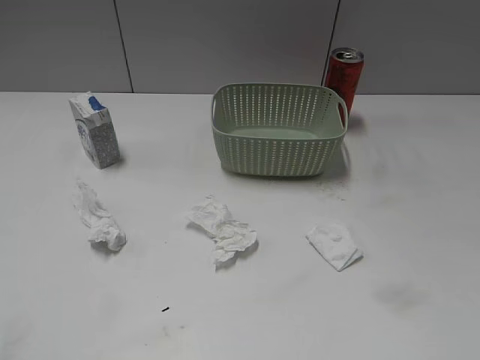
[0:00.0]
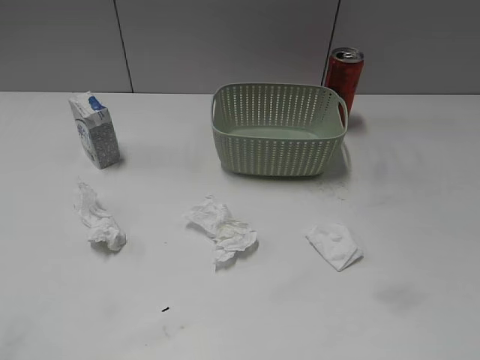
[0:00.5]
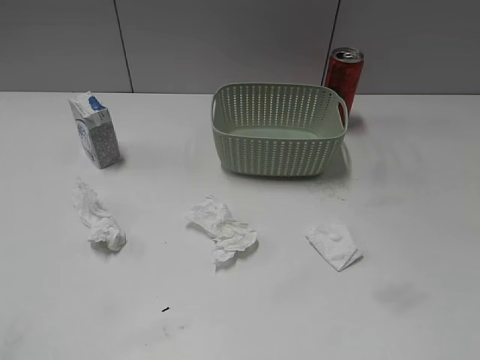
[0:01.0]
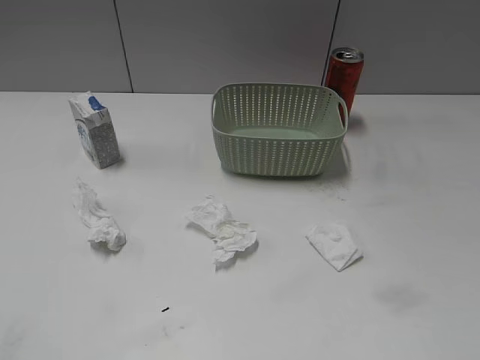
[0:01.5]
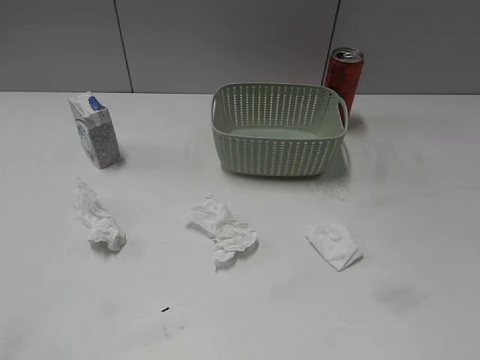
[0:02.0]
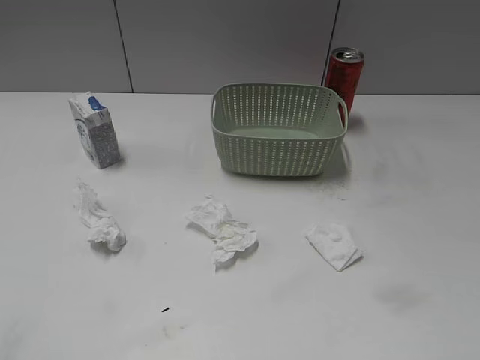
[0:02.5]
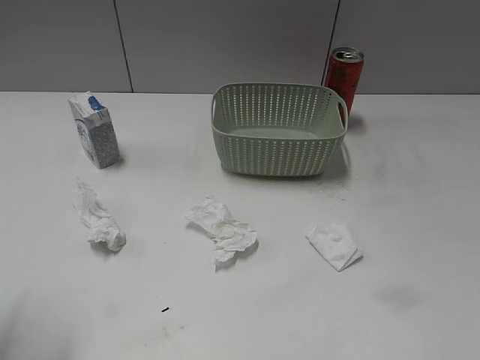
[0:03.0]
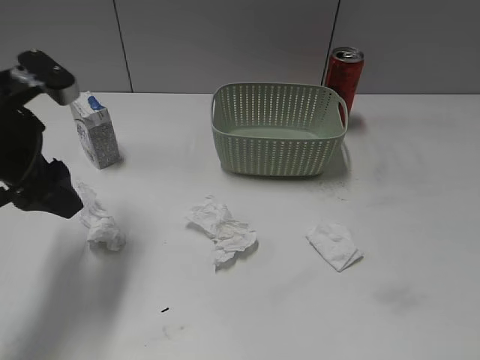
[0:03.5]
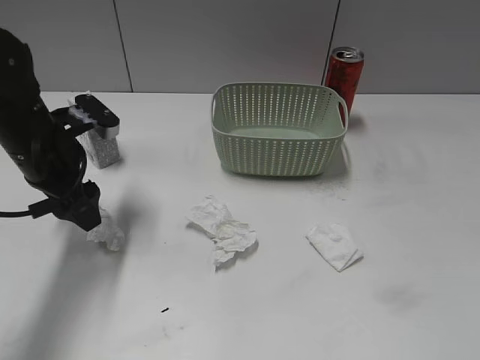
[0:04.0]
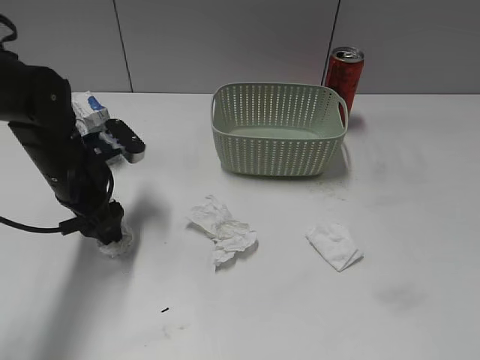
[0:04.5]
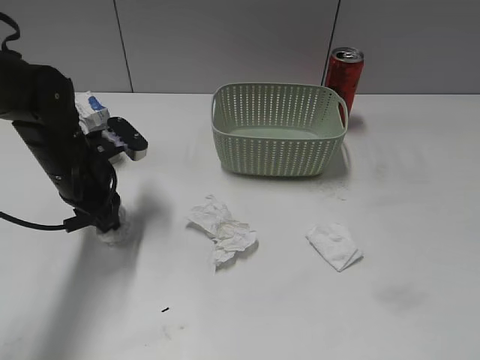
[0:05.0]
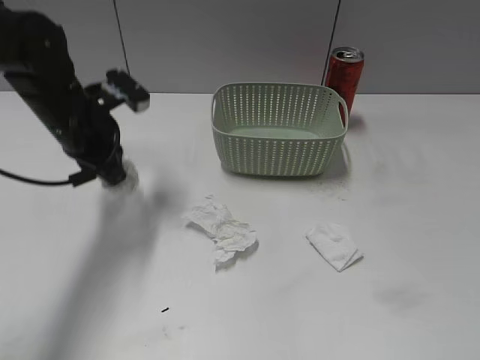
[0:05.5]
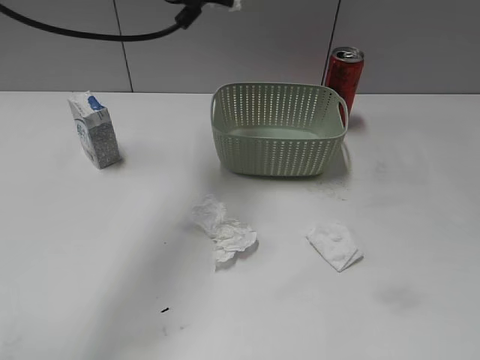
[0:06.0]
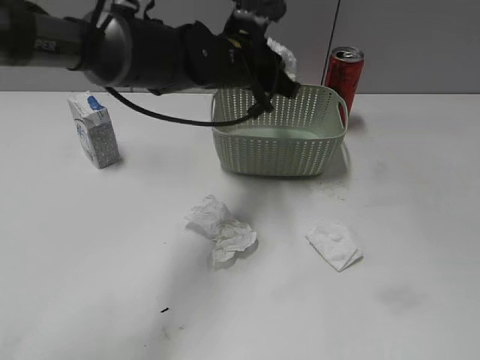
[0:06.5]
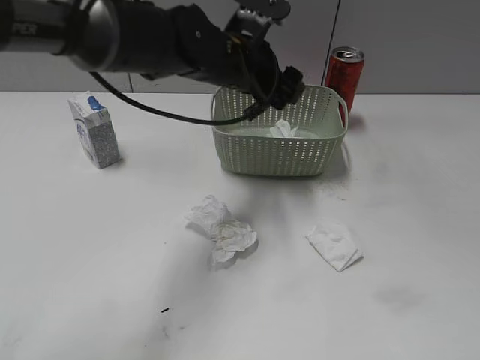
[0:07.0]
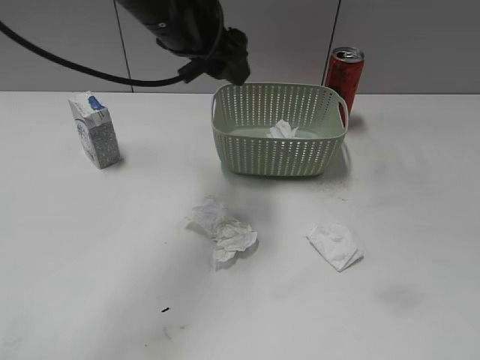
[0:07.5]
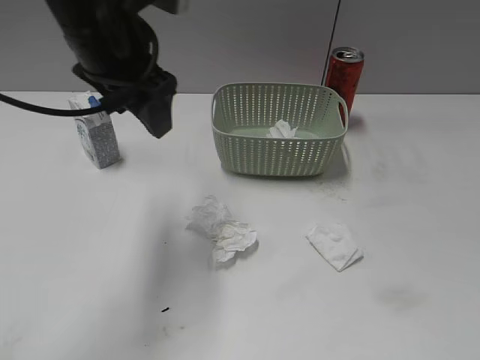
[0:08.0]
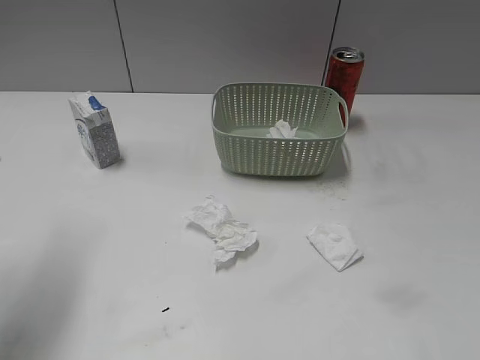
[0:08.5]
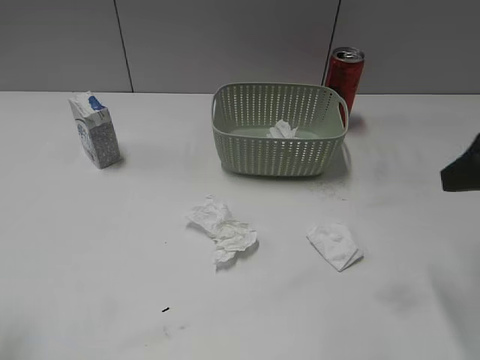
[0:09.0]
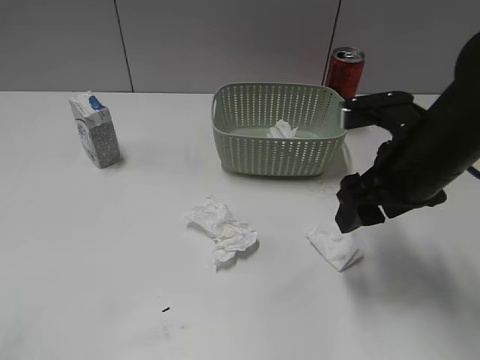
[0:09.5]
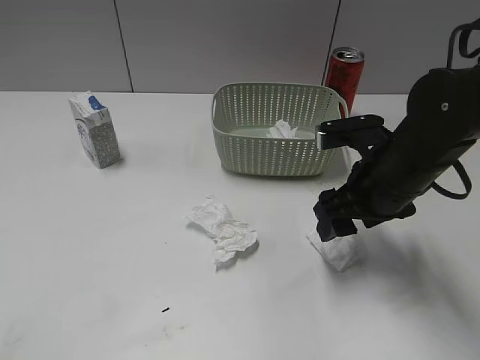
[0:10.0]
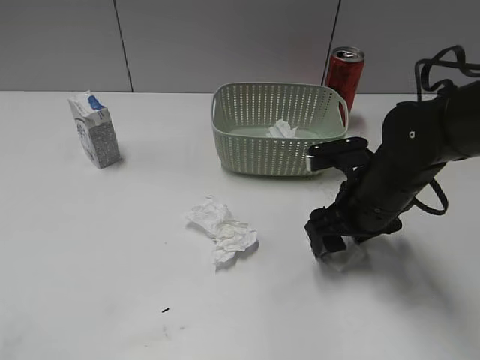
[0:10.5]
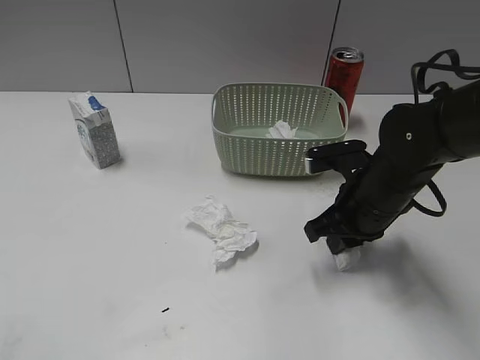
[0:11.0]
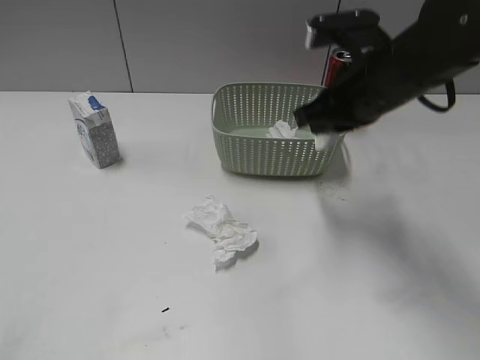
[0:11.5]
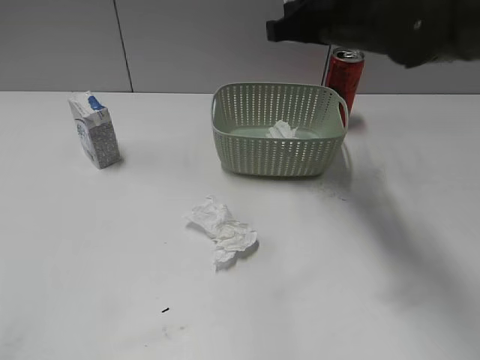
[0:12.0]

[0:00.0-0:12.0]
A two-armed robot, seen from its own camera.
Step, 0:03.5 to 0:05.5: Grasp the waste paper with left gripper.
Step, 0:06.0 to 0:07.0: Place the waste paper in the basket with left gripper.
Step, 0:07.5 to 0:11.0: Grasp the waste paper with right gripper.
0:02.0 to 0:04.0: The left gripper travels forward by about 35 cm.
0:04.0 to 0:06.0: The left gripper moves upward, to the right and forward, about 20 cm, and closes up.
0:06.0 to 0:08.0: The left gripper is displaced backward by about 10 cm, travels downward and back again, roughly 10 cm each way, and opens up.
0:08.0 to 0:10.0: The right gripper goes about 35 cm forward, to the left and downward; the left gripper moves backward and to the left, some 35 cm.
0:10.0 to 0:12.0: The right gripper goes some 15 cm forward and upward, and closes.

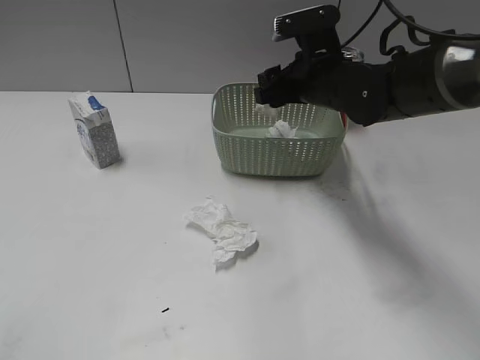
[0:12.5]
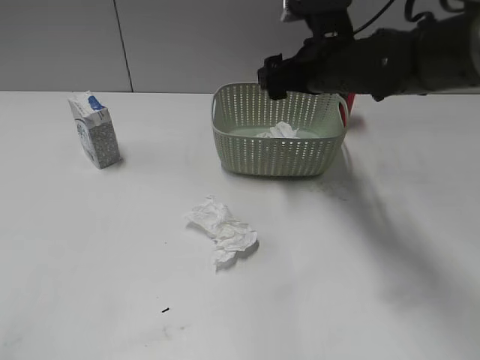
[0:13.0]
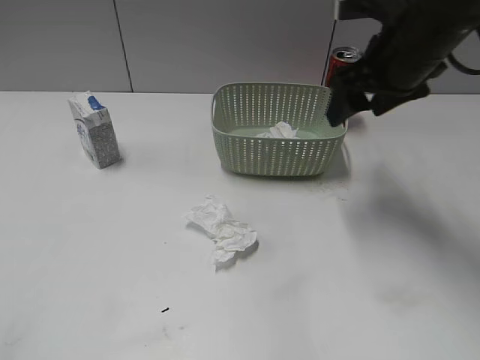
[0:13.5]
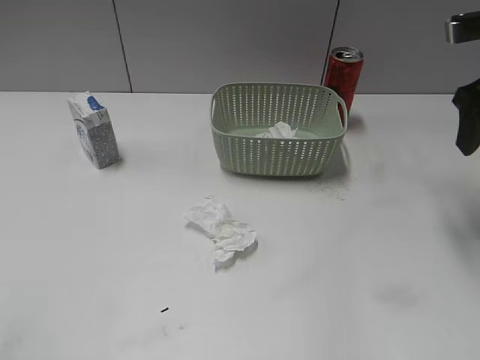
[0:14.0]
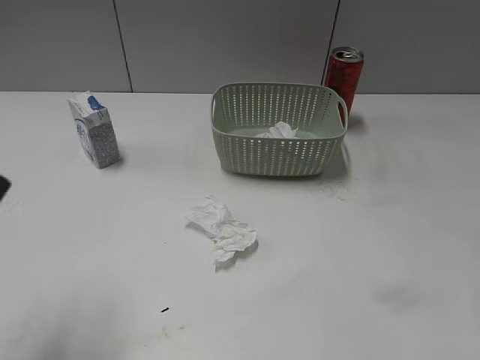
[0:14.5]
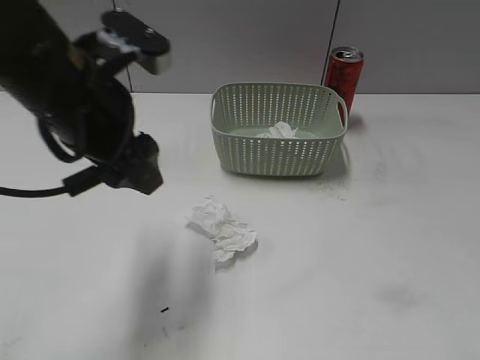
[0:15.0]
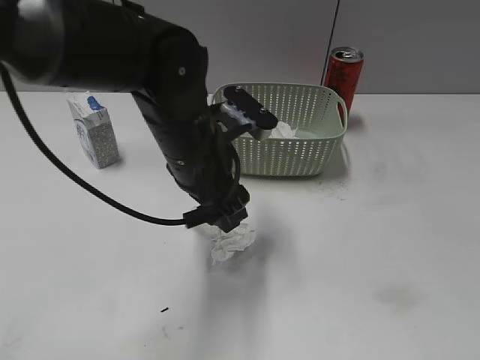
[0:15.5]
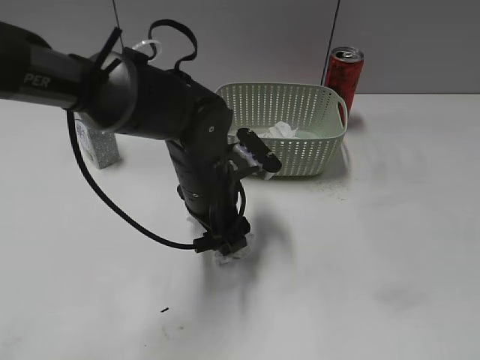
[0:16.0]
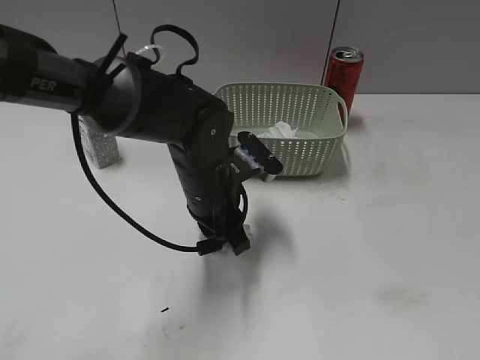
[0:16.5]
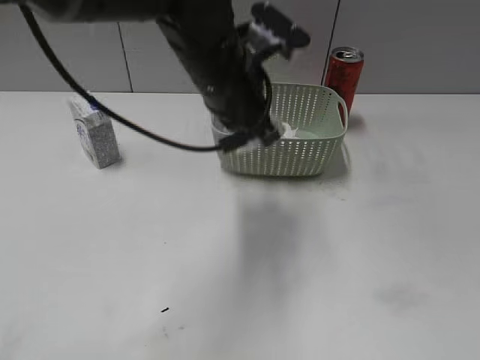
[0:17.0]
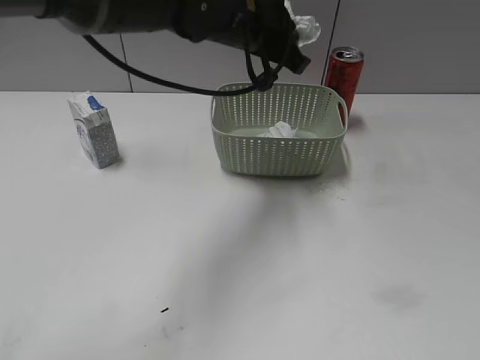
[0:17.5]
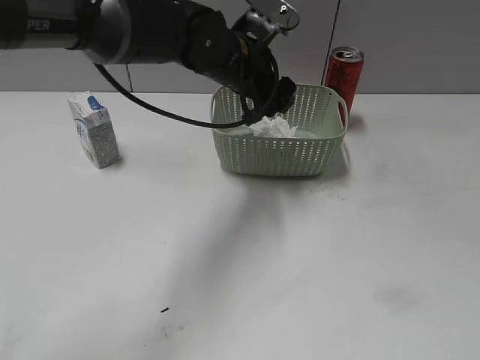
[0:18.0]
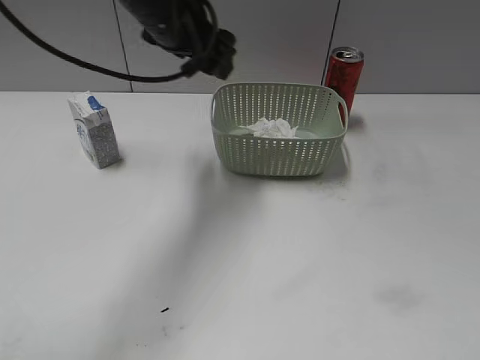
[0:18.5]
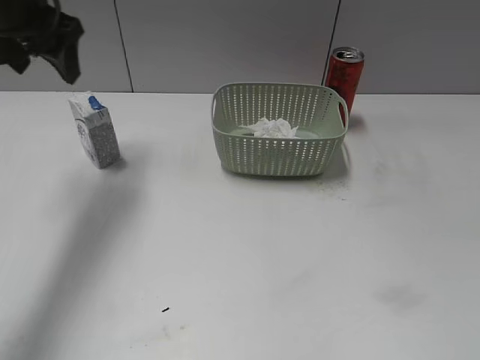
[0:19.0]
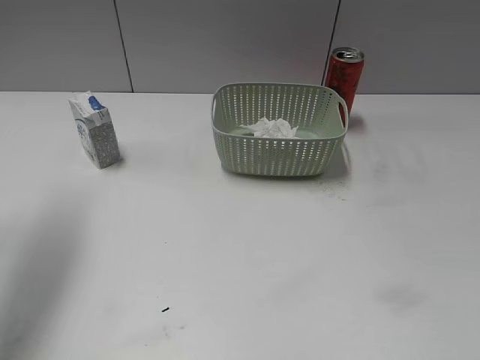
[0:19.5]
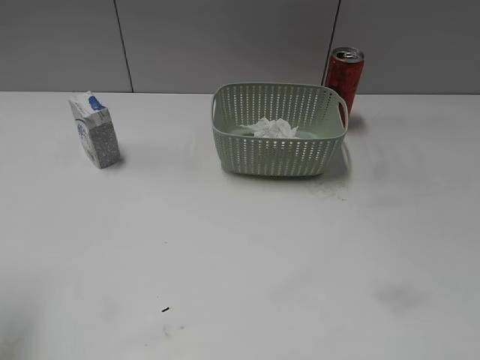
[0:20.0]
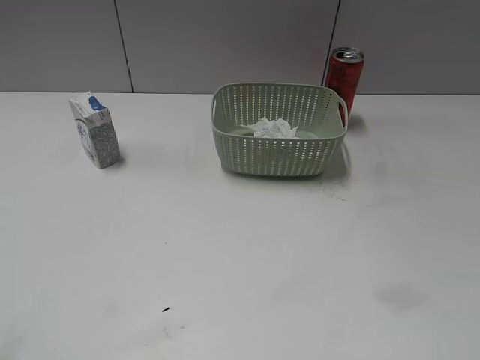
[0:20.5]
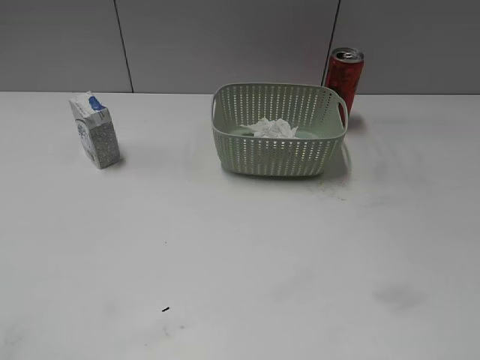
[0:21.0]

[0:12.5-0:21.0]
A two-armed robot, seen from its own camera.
Step, 0:13.0 to 0:16.5: Grasp the waste paper with left gripper.
Step, 0:17.0 to 0:18.0: Place the waste paper in the basket with left gripper.
0:12.5 to 0:14.5: The right gripper goes roughly 30 cm backward, to the right and upward. The left gripper goes approximately 15 cm forward and to the right.
0:14.5 to 0:16.5: The left gripper travels to the right, downward and forward by approximately 35 cm, and closes its fingers. The right gripper travels backward by about 20 cm.
0:16.5 to 0:19.0: The left gripper is displaced to the left, upward and forward by about 30 cm, and opens its fingers.
0:19.0 to 0:21.0: The left gripper moves backward, roughly 35 cm.

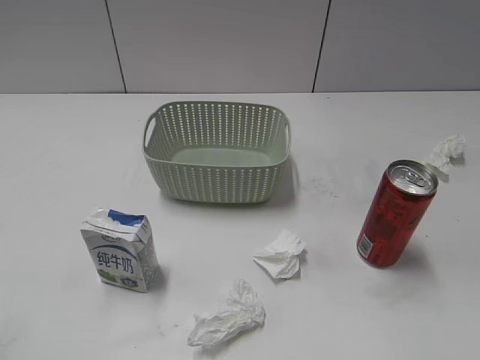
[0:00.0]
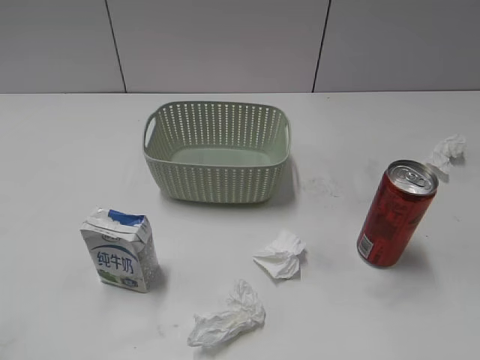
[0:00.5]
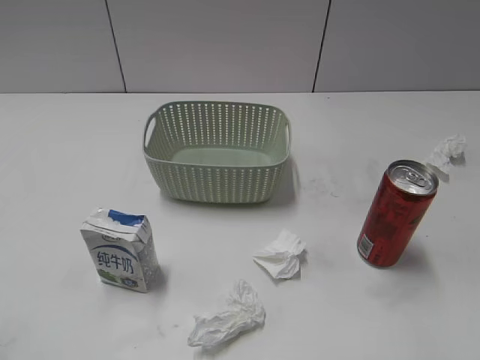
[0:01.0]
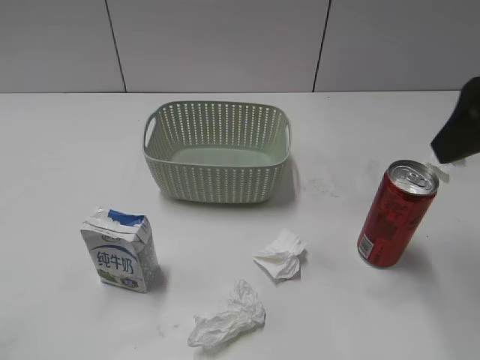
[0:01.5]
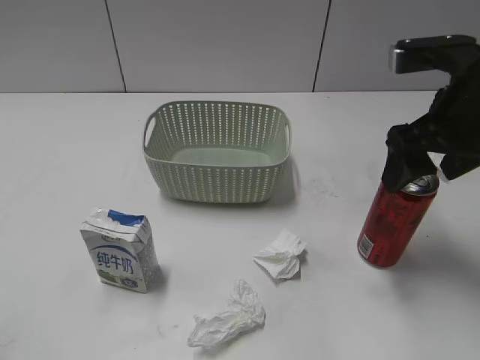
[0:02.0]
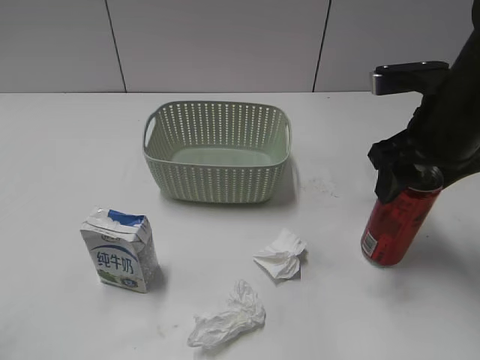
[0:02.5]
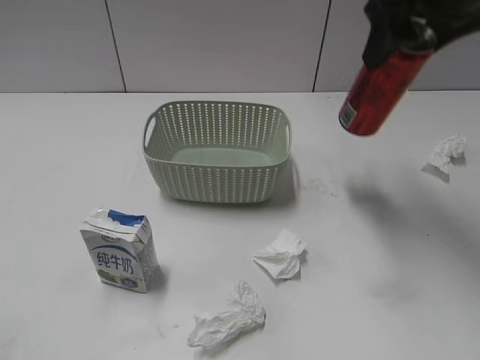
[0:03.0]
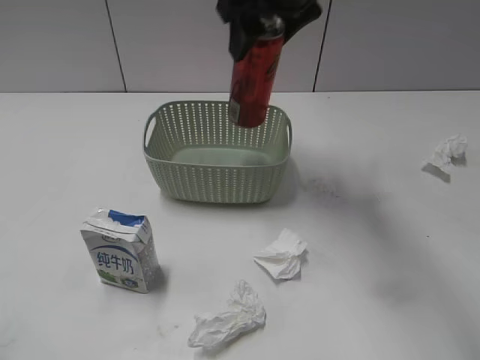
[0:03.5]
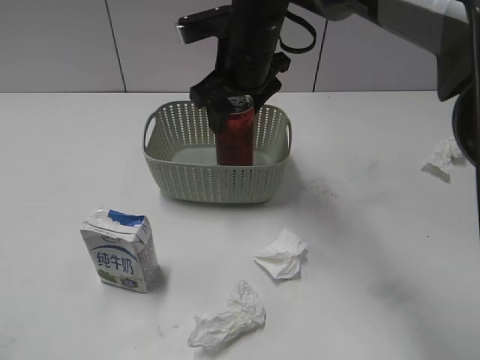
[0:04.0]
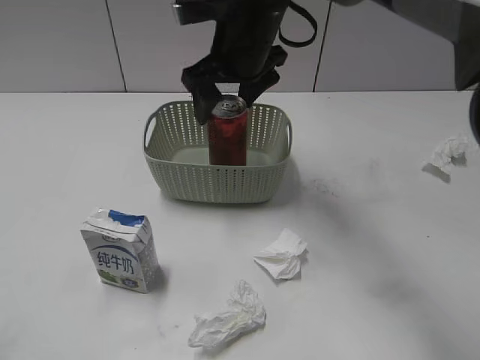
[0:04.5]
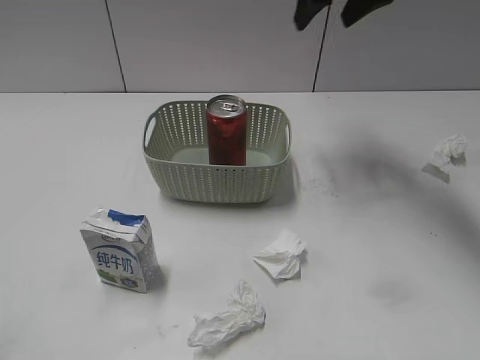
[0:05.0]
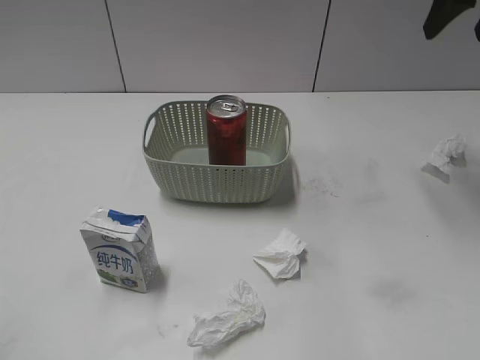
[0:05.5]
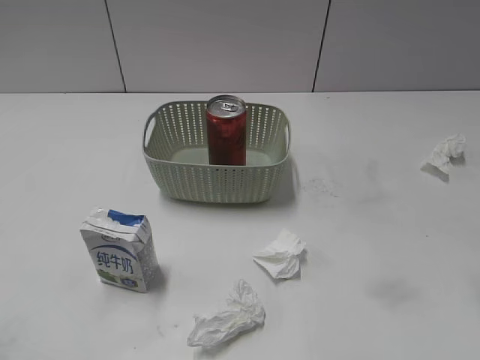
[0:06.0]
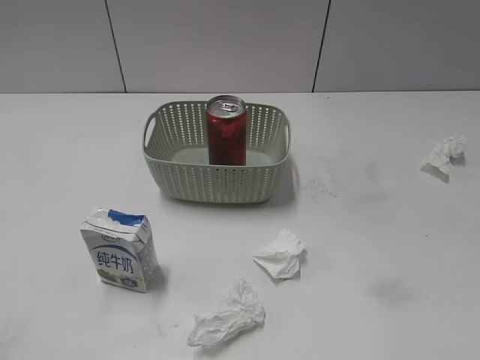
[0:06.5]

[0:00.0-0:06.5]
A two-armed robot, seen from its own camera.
Step, 0:01.5 to 0:02.0: Grasp the cola can with right gripper.
Step, 0:02.5 to 0:04.5: Place the cola can in the basket with right gripper.
0:02.0 to 0:04.5: The right gripper shifts some 25 cm to the left and forward, and closes and opens again.
0:04.5 to 0:06.5: The right gripper moves backward and to the right, approximately 40 cm, and closes up.
